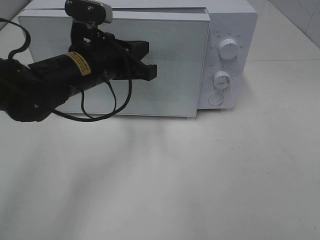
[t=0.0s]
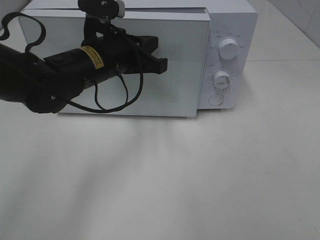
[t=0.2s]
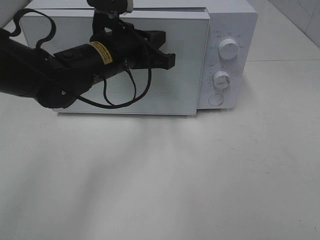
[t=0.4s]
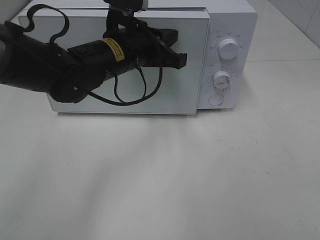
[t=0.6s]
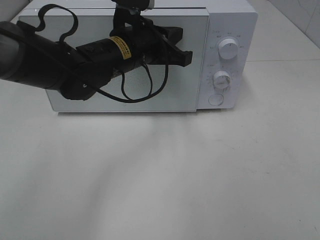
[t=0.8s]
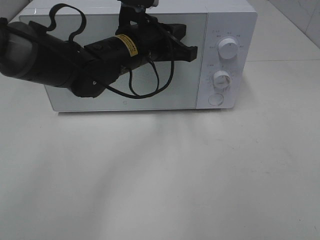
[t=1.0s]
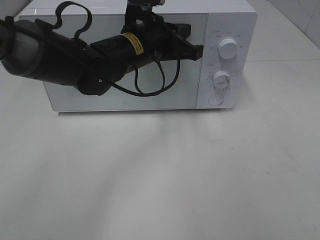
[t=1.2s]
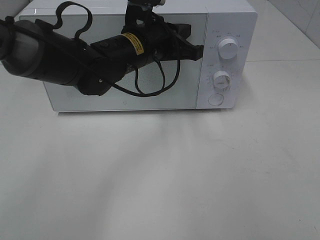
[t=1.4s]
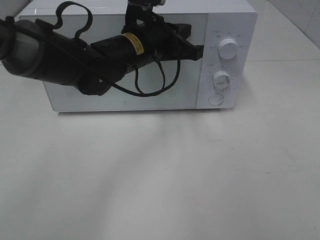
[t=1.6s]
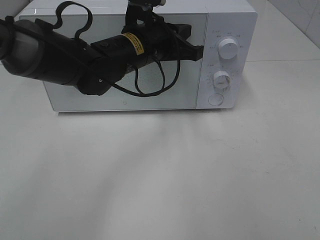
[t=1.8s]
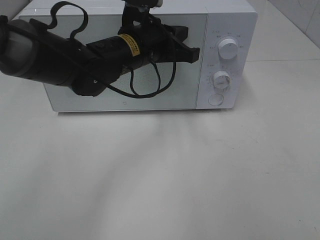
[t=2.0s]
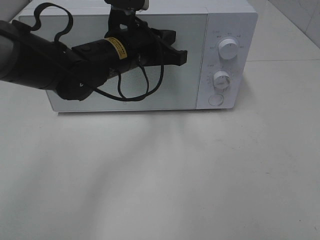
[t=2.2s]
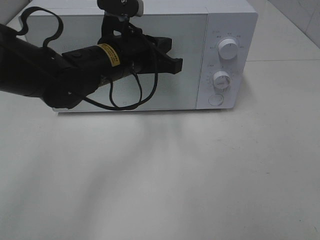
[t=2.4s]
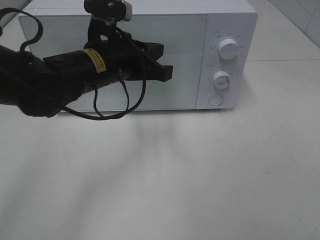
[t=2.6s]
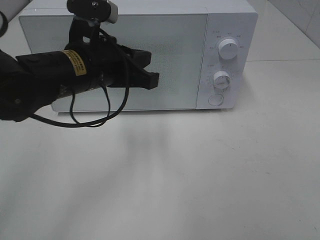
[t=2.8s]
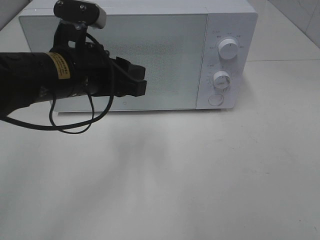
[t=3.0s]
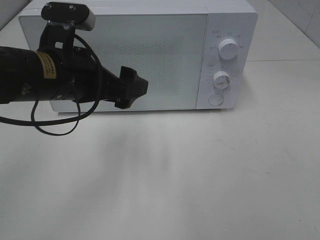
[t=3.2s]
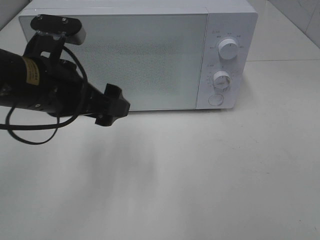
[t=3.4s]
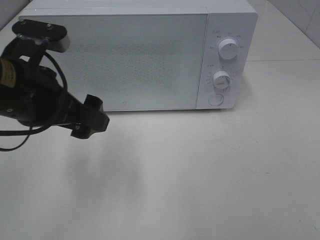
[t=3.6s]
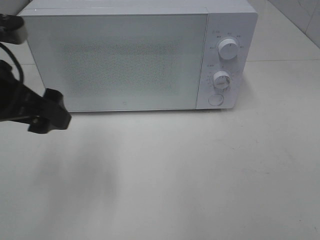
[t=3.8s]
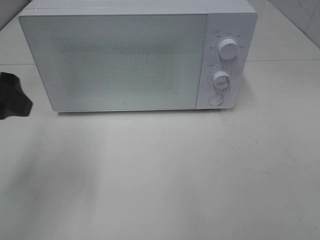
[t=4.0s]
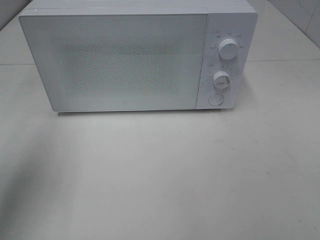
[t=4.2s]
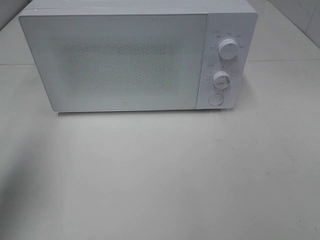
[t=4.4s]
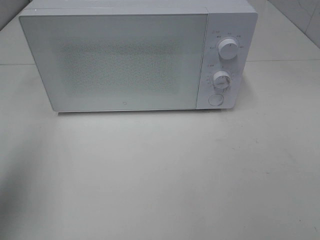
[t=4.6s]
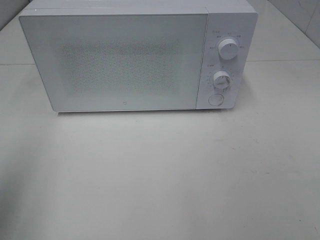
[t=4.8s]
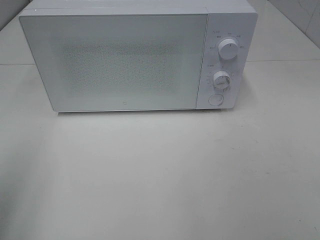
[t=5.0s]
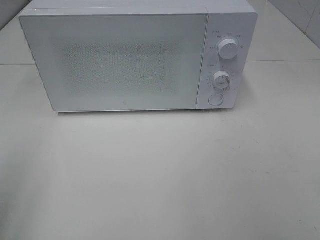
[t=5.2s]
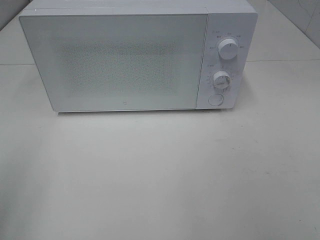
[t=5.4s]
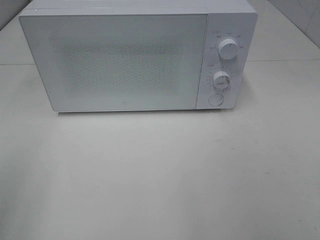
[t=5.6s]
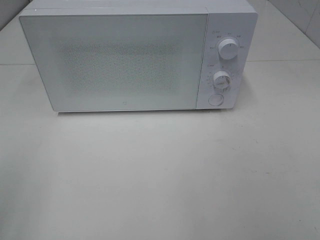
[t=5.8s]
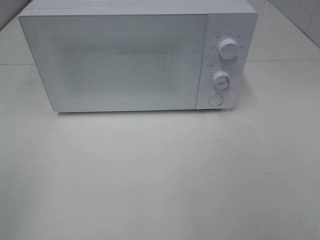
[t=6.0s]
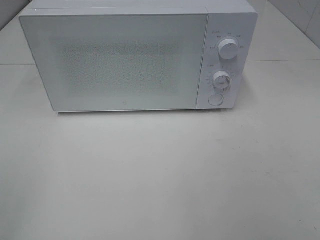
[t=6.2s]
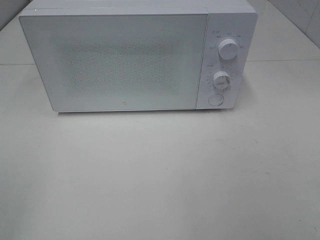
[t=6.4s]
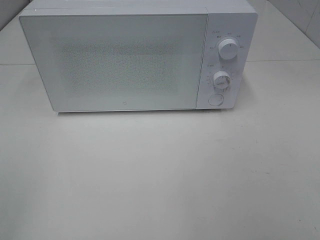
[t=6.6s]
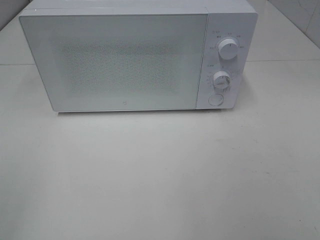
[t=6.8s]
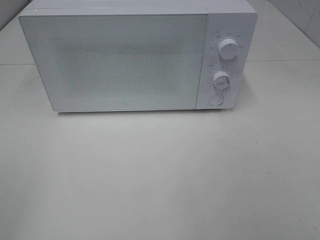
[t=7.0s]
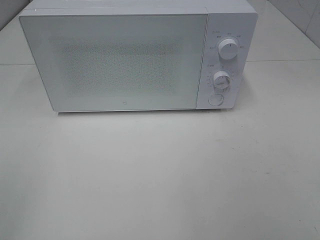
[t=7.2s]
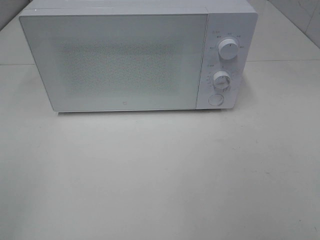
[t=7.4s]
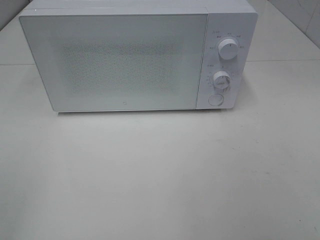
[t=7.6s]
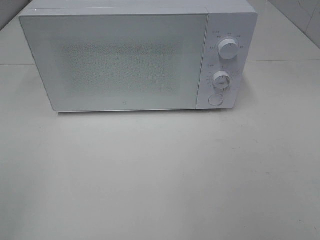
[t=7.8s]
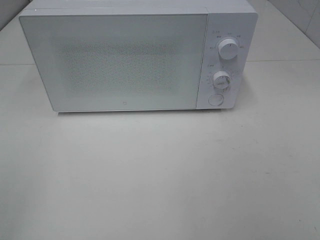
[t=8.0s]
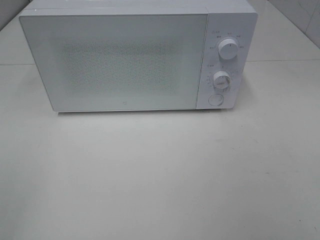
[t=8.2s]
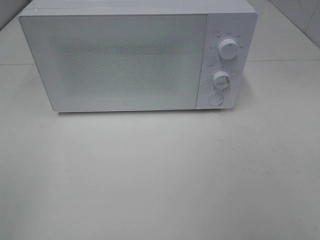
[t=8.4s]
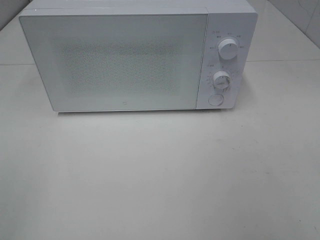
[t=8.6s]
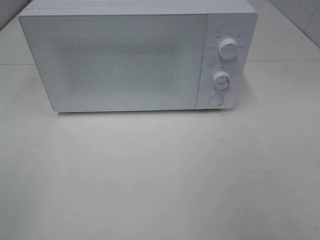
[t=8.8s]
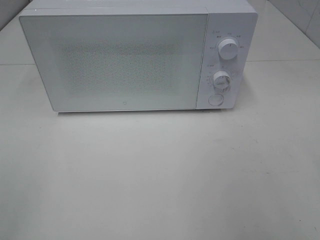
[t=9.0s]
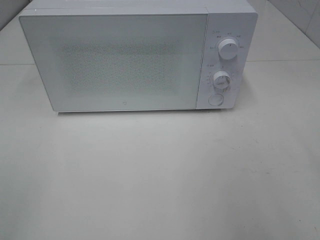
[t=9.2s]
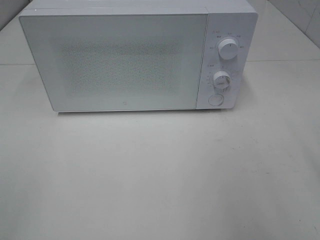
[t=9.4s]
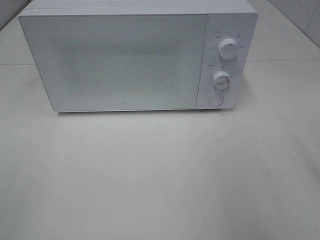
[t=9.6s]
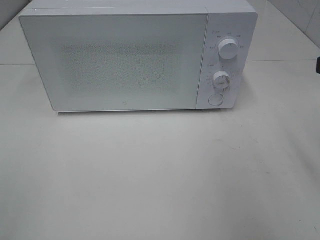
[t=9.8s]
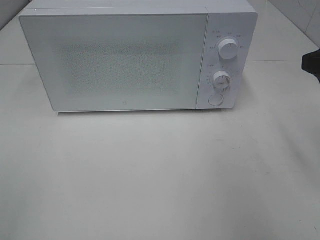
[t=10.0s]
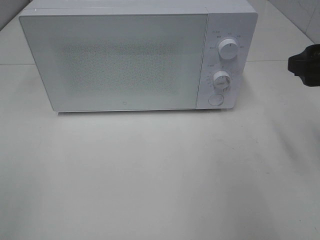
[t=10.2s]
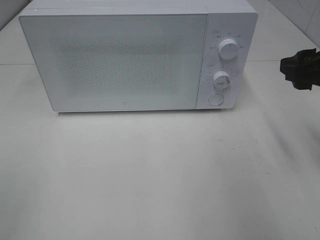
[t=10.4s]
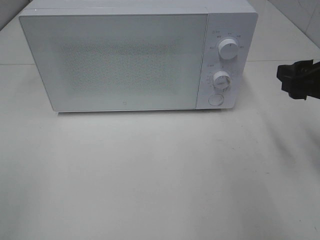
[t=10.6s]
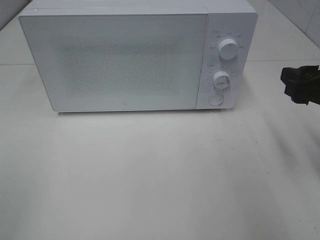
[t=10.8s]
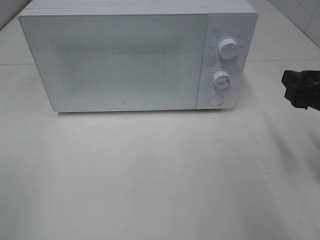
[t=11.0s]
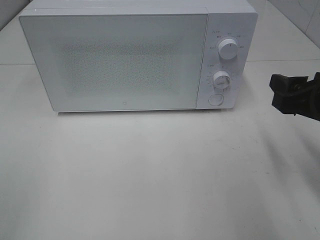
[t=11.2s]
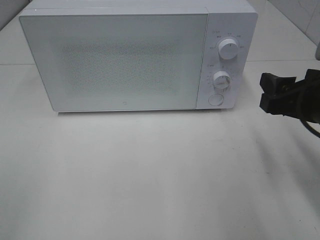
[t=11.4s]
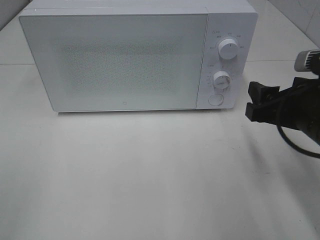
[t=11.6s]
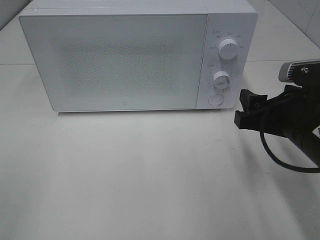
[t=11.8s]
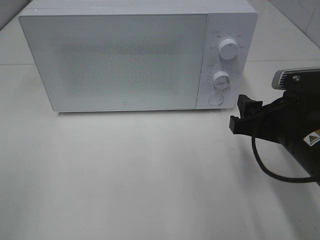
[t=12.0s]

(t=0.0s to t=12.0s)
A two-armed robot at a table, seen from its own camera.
Task of the whole recording: Heat Sandwich.
Step, t=0.0s - t=3.0s: Left hand: close the microwave door.
t=0.0s - t=1.6s: The left gripper heads to the right, covering approximately 5 cm.
t=1.6s - t=3.0s: The left gripper goes some 15 cm backward and to the left, and opens.
t=3.0s - t=4.4s: The left gripper moves to the left, upward and backward, some 25 cm, and opens.
t=4.4s - t=6.0s: The left gripper goes approximately 15 cm backward.
t=9.0s - t=10.4s: The right gripper is displaced forward and downward by approximately 15 cm.
t=10.4s - t=12.0s: The right gripper shifts approximately 10 cm downward and to the left.

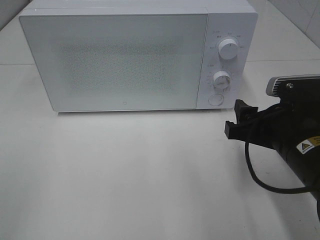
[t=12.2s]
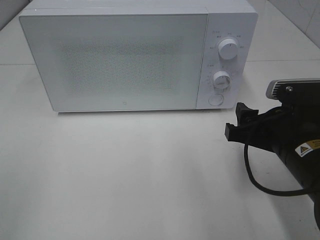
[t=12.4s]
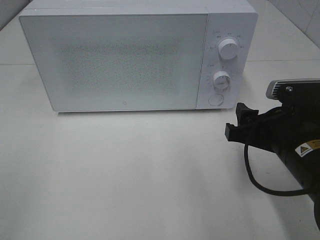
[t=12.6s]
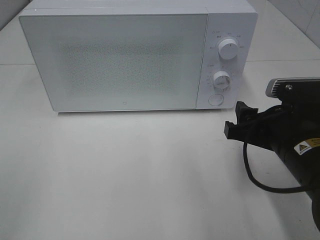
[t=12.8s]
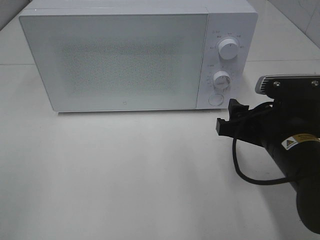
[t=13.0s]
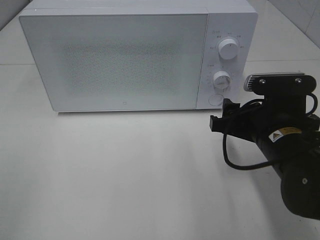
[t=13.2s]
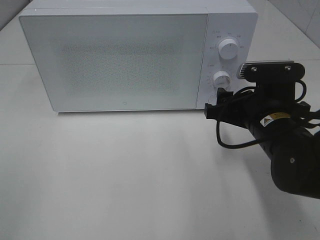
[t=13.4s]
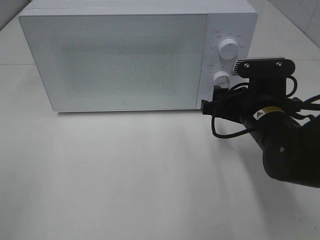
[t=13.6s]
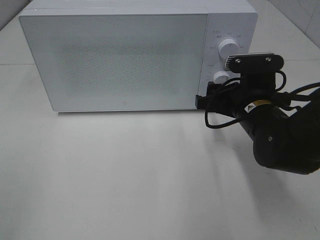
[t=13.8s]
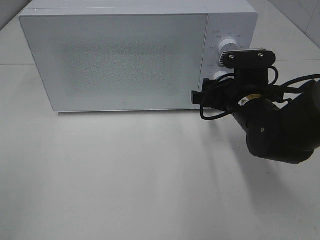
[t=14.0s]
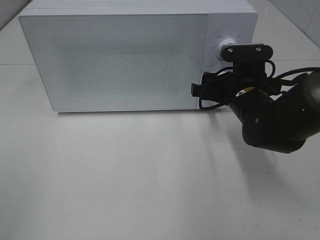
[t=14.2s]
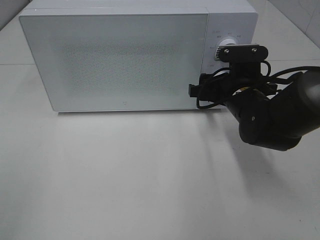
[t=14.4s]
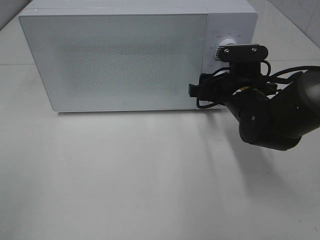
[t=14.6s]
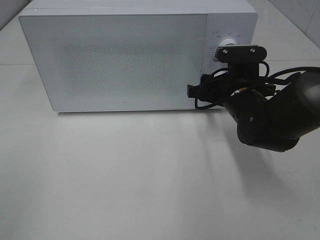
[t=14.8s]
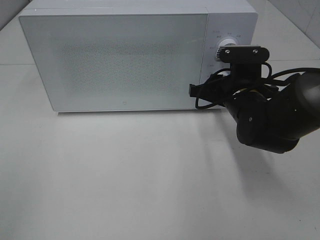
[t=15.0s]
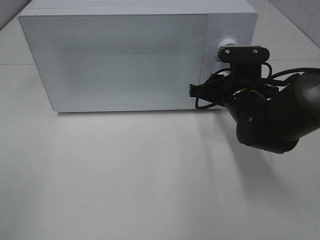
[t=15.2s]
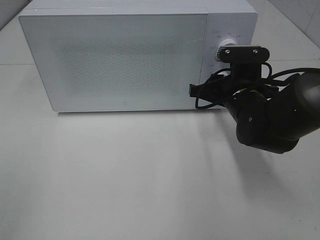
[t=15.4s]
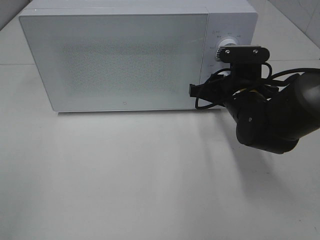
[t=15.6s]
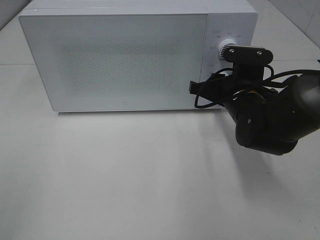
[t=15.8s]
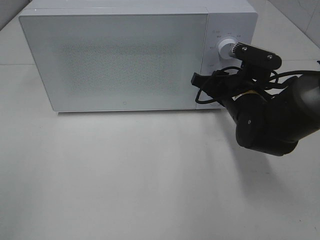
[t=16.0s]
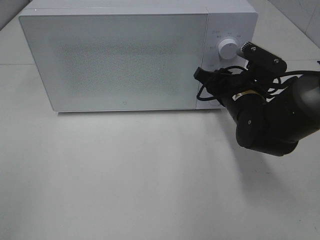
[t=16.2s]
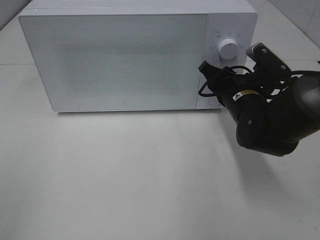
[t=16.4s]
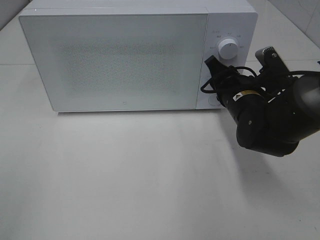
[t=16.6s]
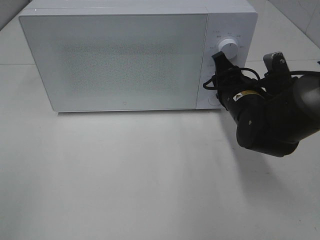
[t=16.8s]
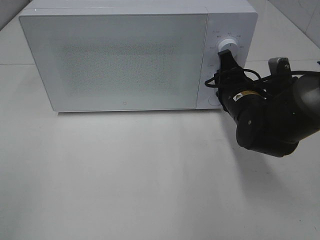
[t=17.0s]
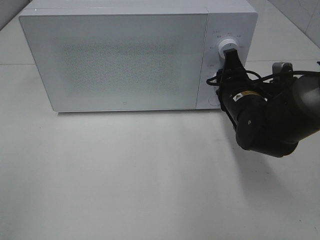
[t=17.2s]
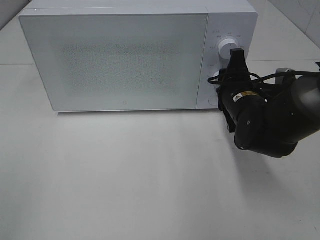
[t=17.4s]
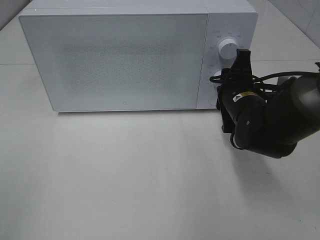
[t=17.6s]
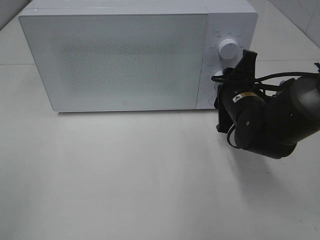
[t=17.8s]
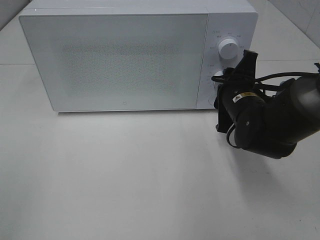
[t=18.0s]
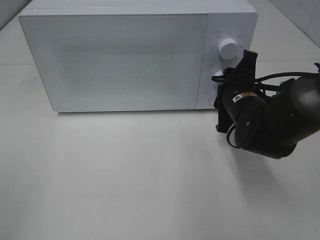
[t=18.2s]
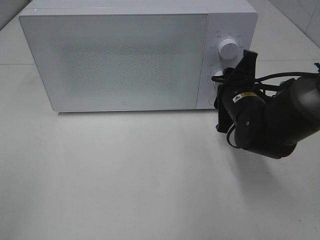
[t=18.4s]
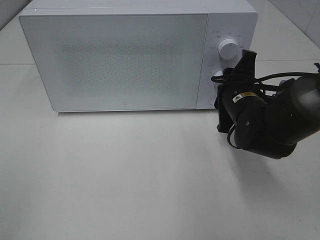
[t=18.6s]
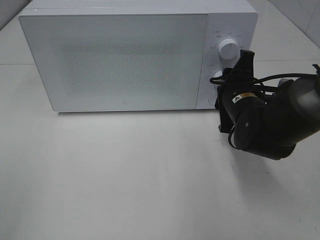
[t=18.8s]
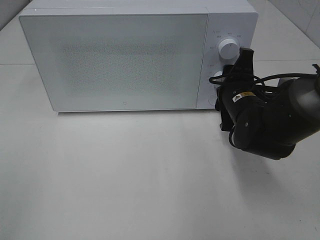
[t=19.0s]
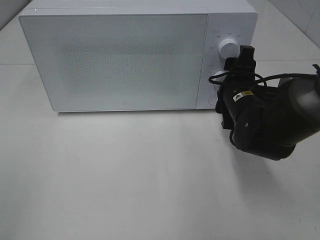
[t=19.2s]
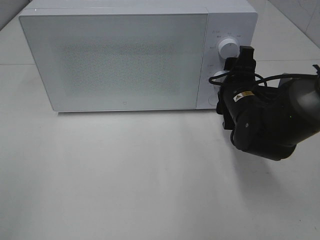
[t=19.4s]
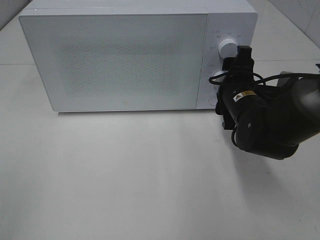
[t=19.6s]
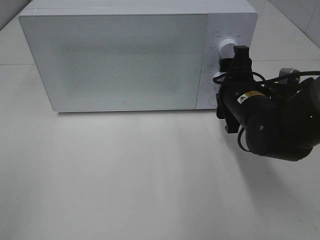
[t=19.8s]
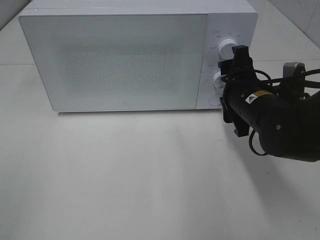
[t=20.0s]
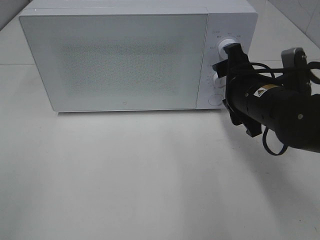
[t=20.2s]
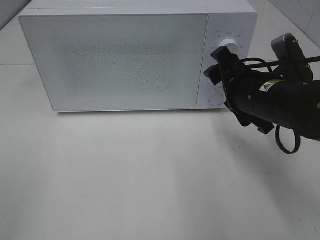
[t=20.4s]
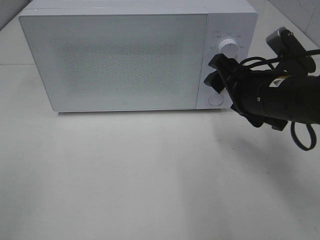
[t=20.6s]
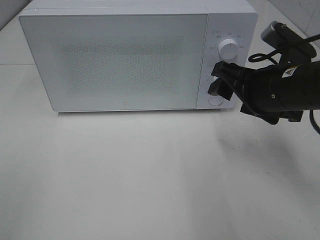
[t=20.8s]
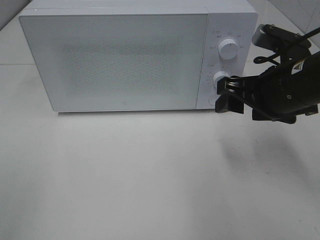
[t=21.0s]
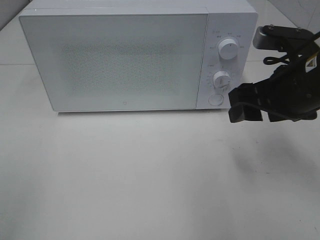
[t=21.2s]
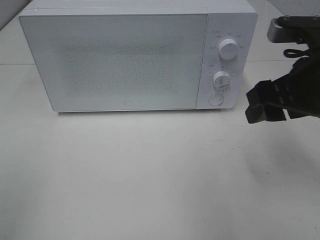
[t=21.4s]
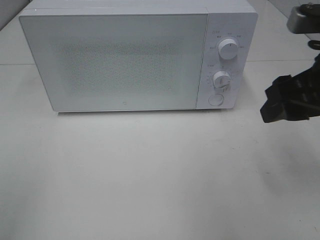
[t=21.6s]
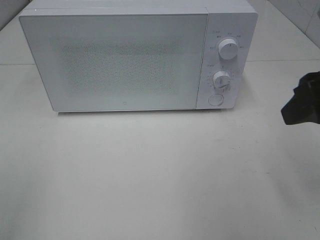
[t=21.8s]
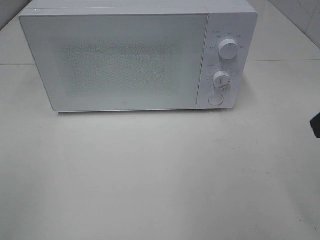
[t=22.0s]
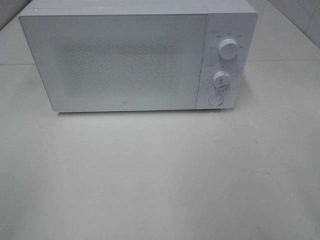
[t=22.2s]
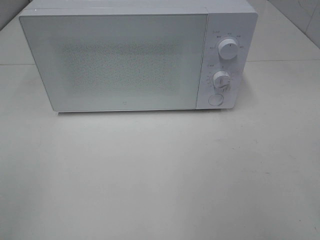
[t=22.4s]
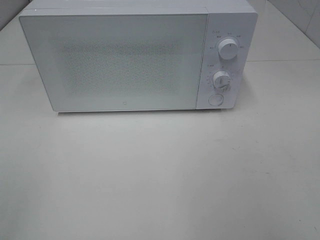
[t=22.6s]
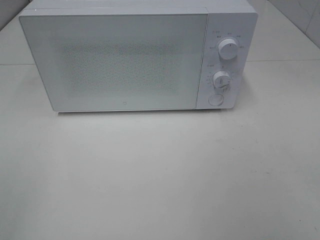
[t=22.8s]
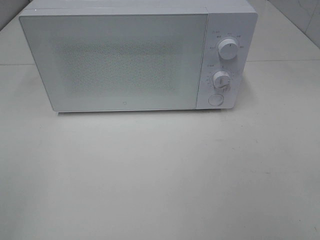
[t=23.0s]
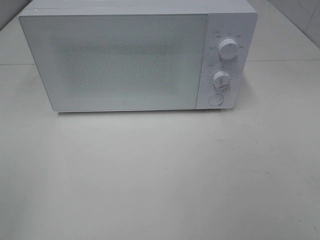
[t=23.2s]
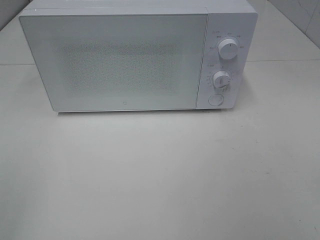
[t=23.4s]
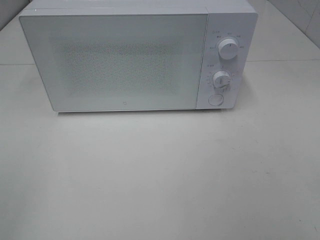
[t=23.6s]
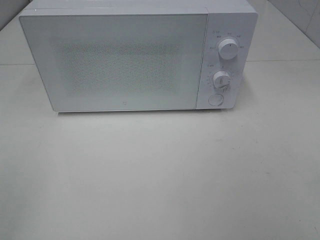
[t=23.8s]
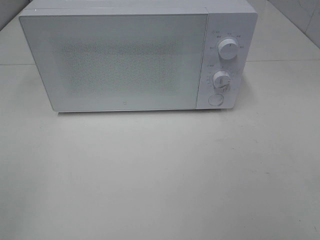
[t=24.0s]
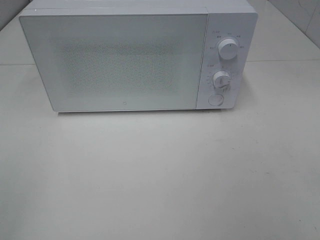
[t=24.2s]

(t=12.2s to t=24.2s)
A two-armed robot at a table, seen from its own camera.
Task of the whole recording: Heat Sandwich.
Step, t=12.2s - t=20.0s: Right hand: twist timer button.
t=12.2s - t=13.8s: The right gripper travels forward by some 10 cm.
t=13.8s - t=15.2s: The right gripper closes up.
t=18.2s - t=19.8s: The right gripper opens up.
t=19.8s - t=21.2s: The right gripper shifts approximately 10 cm upward and backward.
t=21.2s - t=22.6s: The right gripper is displaced backward and upward by roughly 20 cm.
